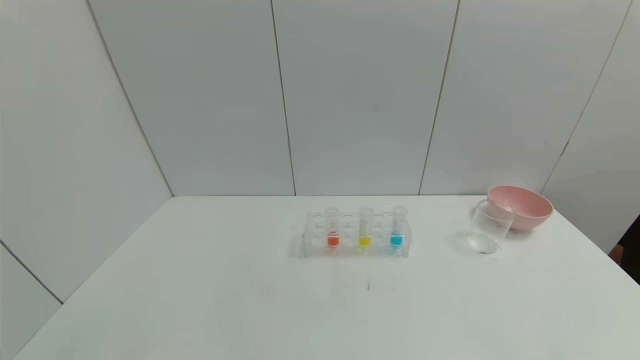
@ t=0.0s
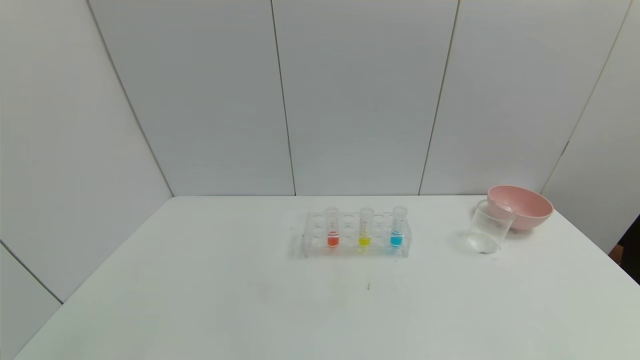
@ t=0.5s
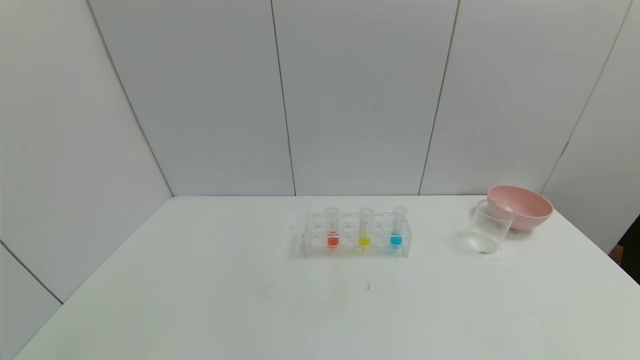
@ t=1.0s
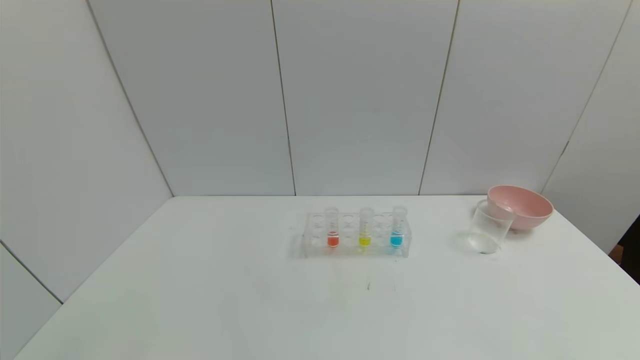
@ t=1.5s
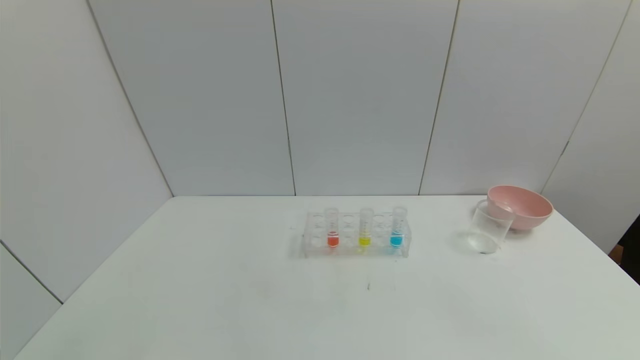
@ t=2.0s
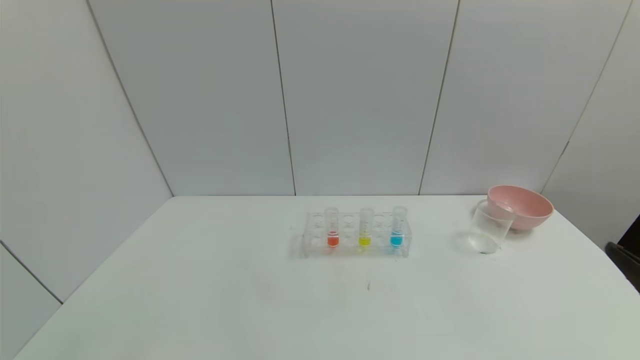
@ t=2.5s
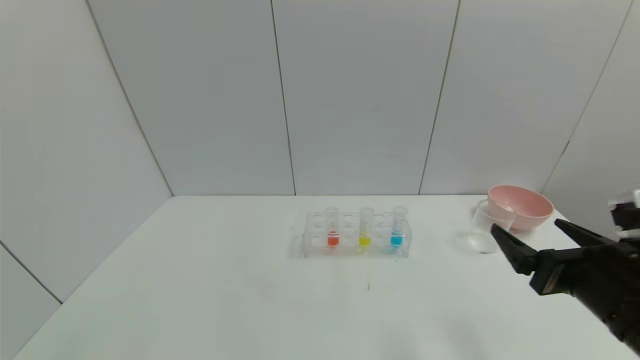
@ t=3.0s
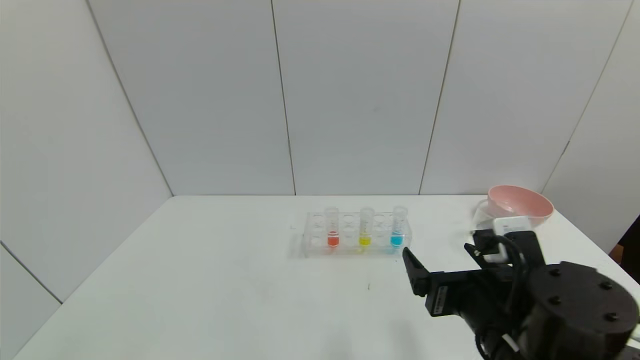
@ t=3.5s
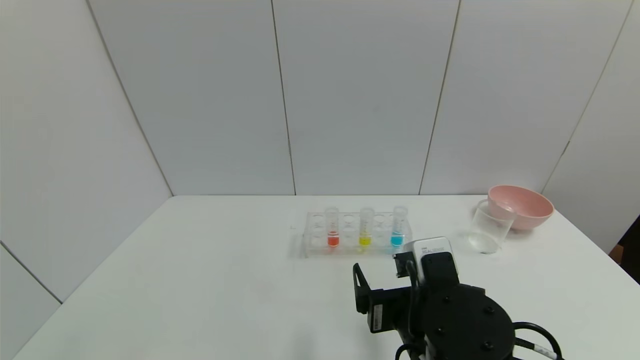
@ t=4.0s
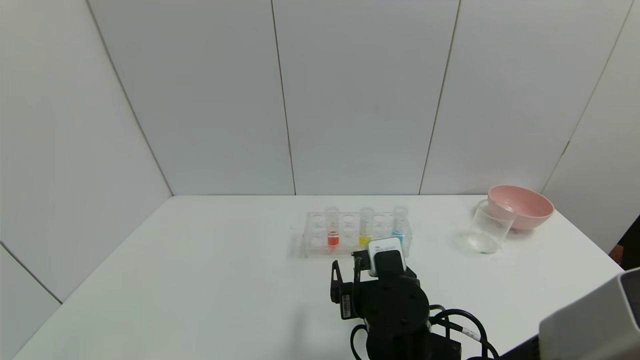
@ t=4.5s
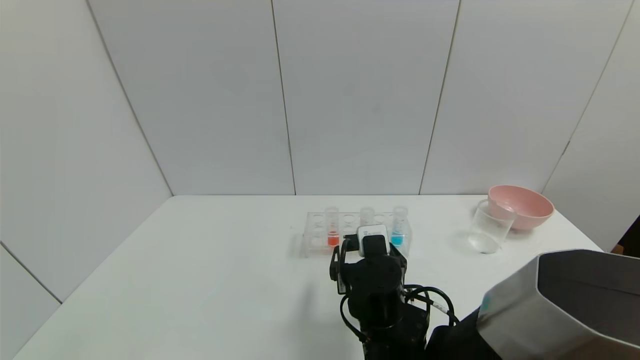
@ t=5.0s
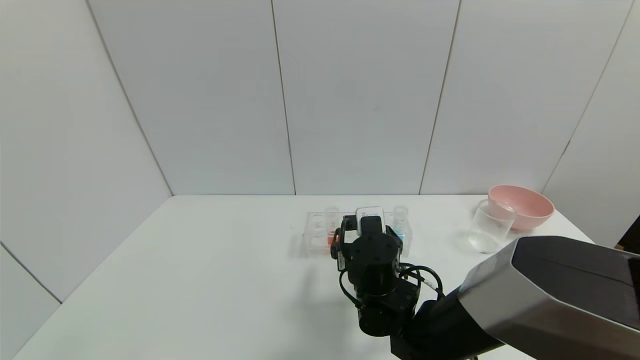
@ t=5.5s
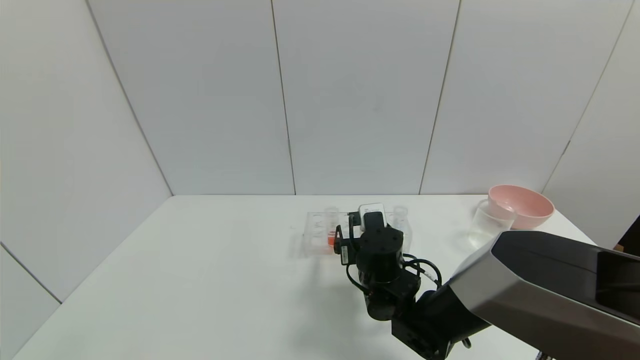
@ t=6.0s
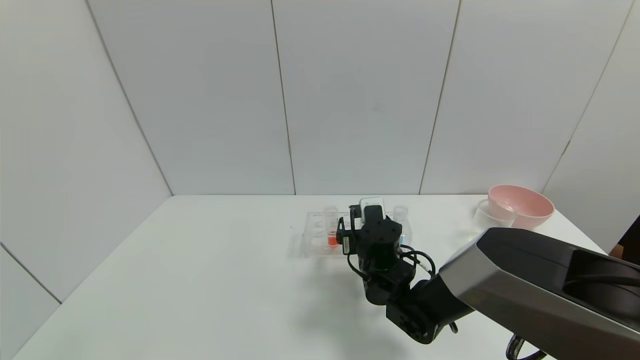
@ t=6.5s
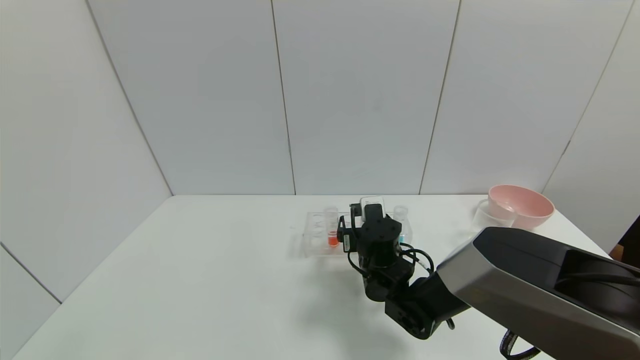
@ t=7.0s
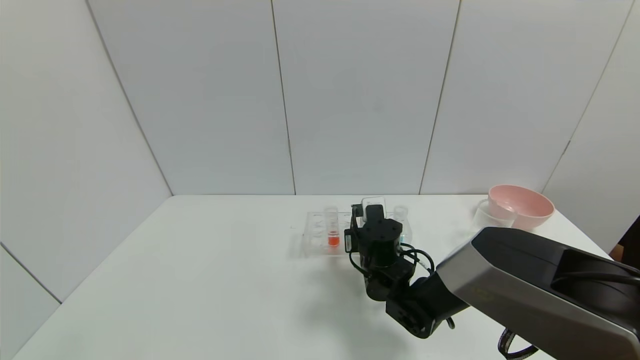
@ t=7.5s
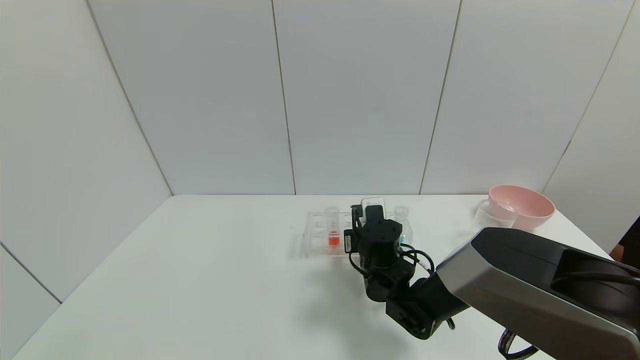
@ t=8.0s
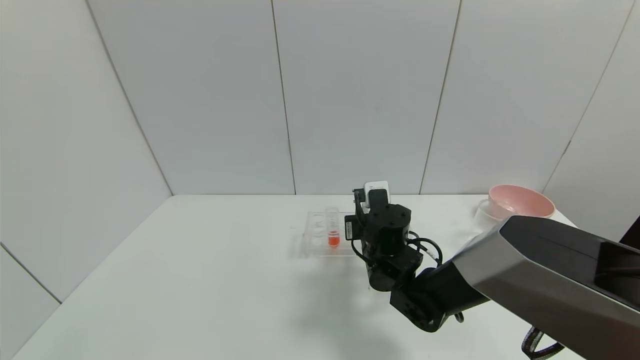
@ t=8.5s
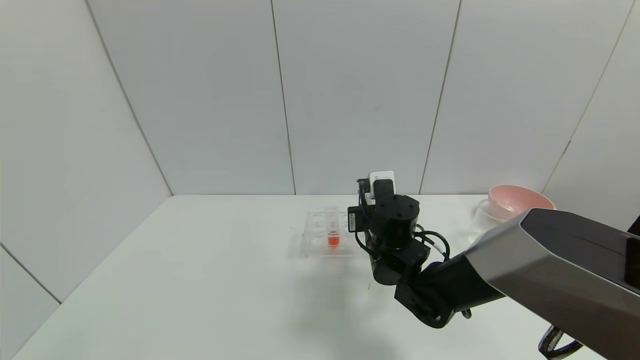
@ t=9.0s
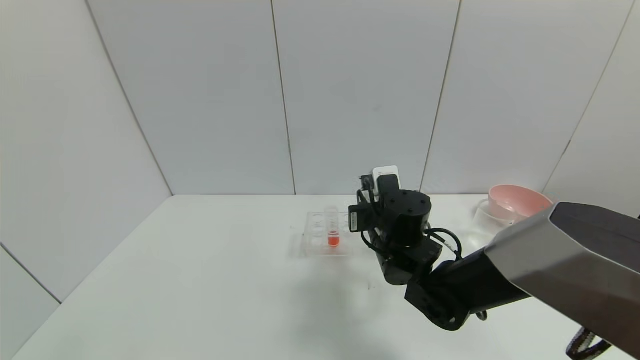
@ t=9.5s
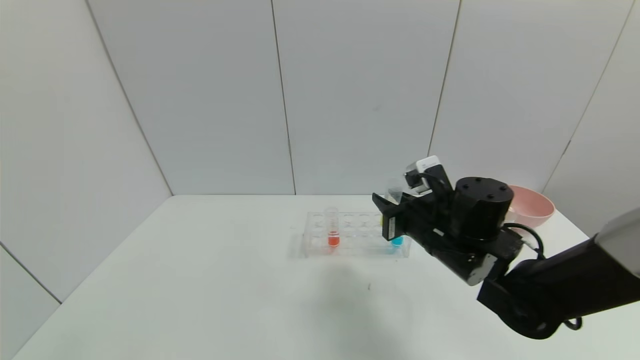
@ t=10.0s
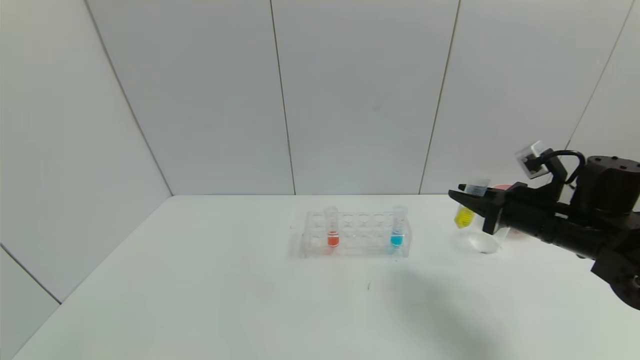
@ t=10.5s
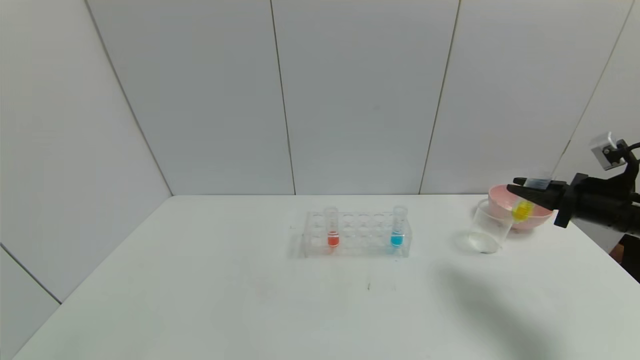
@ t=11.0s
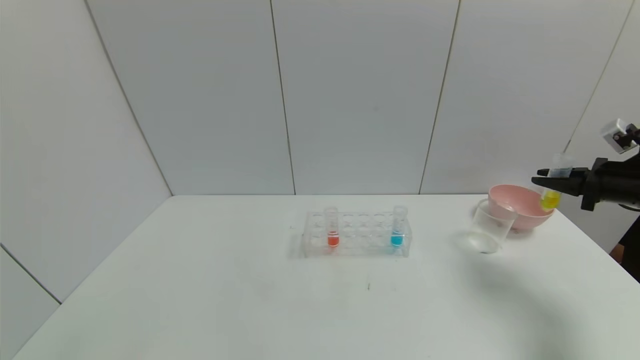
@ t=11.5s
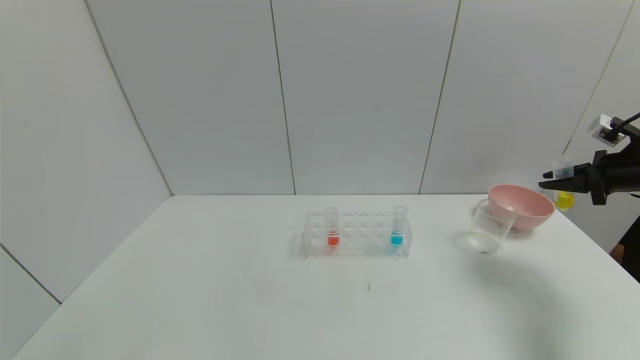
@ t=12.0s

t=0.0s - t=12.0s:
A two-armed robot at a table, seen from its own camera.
Task of the whole recording: pick up the test tube with yellow pigment and the test tube with blue pigment by grippers and pour them into the beaker.
Step, t=0.0s - t=10.0s: Pick up the test tube containing the yellow reagent with right gripper.
t=2.0s - t=4.0s: The right gripper goes some 30 cm to the left and forward.
t=4.0s - t=6.0s: The right gripper heads forward, covering some 15 cm.
t=6.0s - t=8.0s: The right gripper closes its fingers.
t=8.0s - t=10.0s: The right gripper goes roughly 15 cm upward and to the right.
t=10.0s - t=12.0s: The right gripper heads to the right, covering approximately 35 cm.

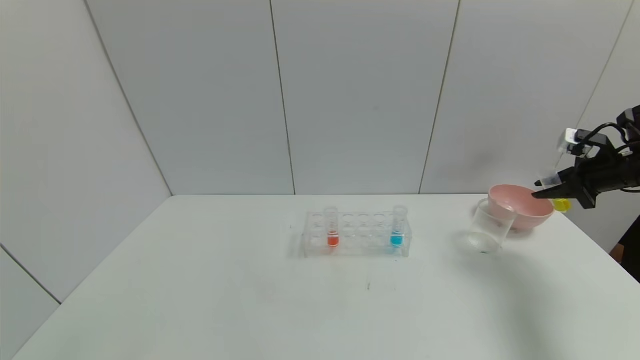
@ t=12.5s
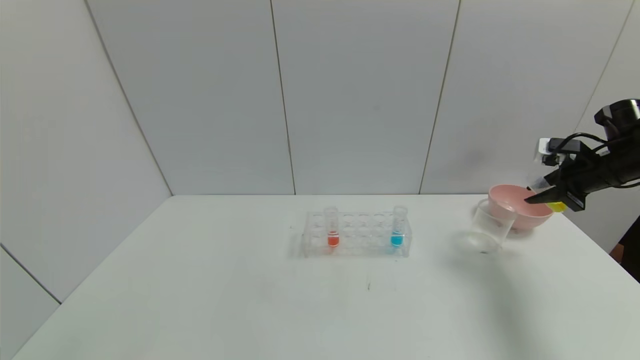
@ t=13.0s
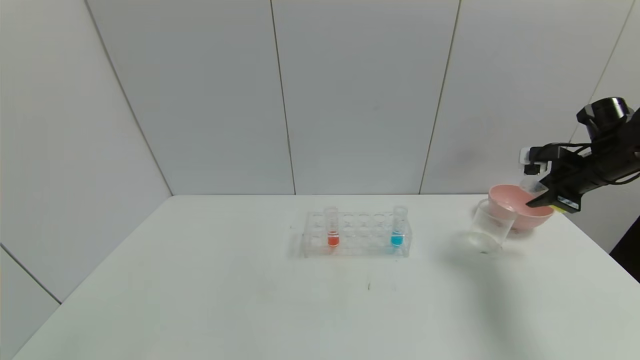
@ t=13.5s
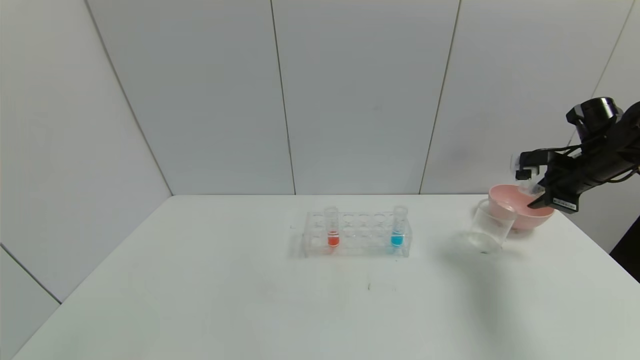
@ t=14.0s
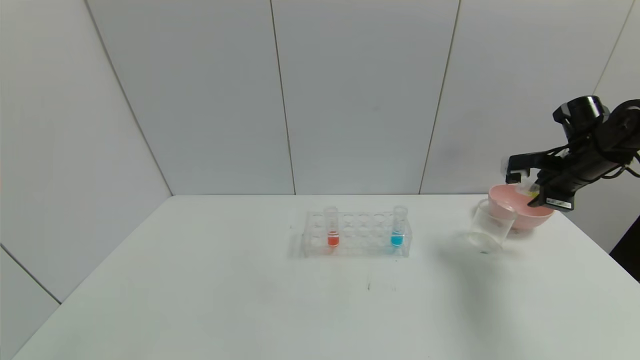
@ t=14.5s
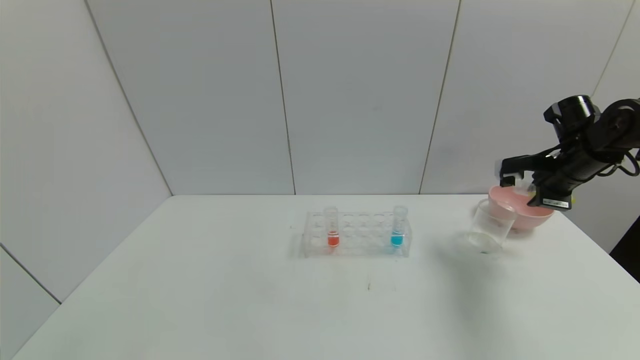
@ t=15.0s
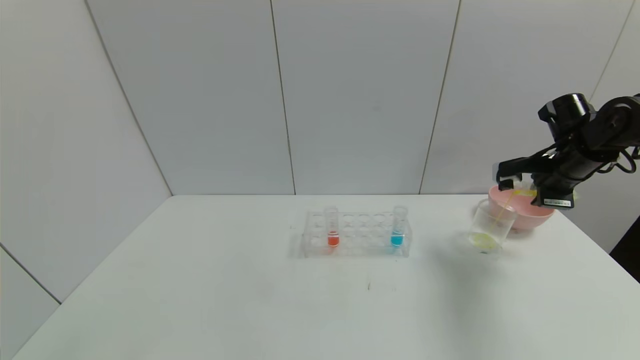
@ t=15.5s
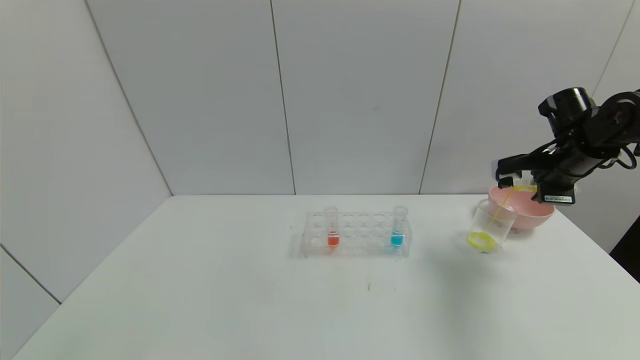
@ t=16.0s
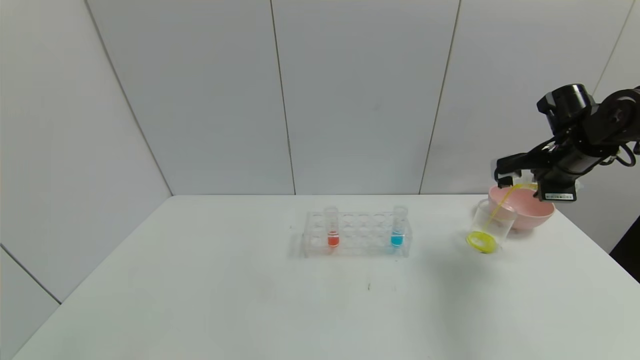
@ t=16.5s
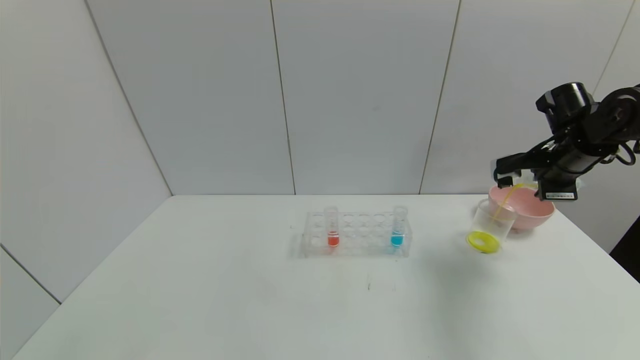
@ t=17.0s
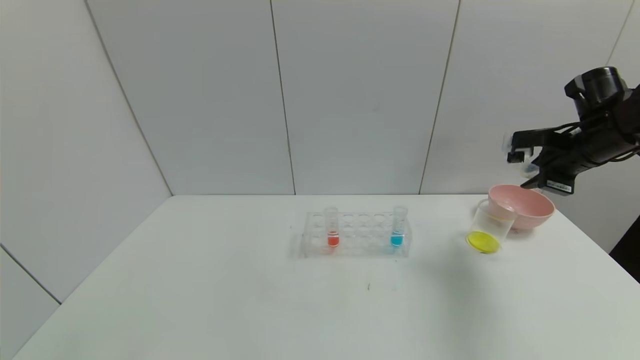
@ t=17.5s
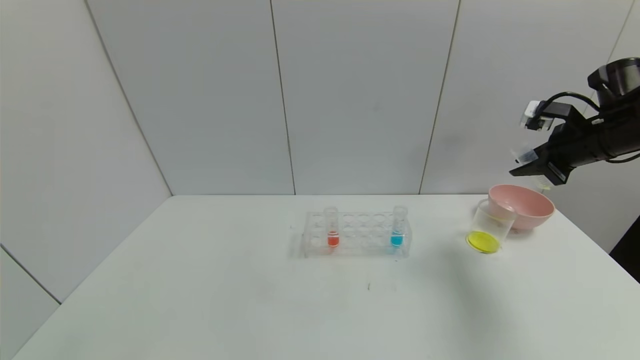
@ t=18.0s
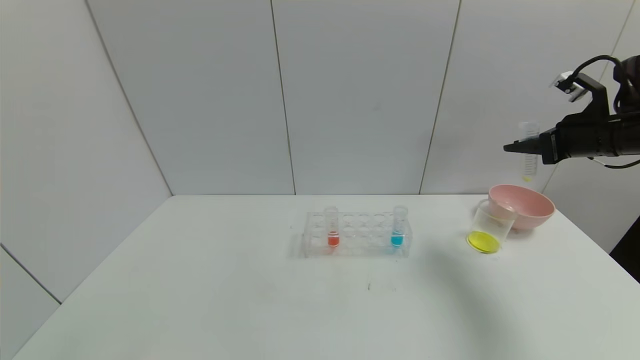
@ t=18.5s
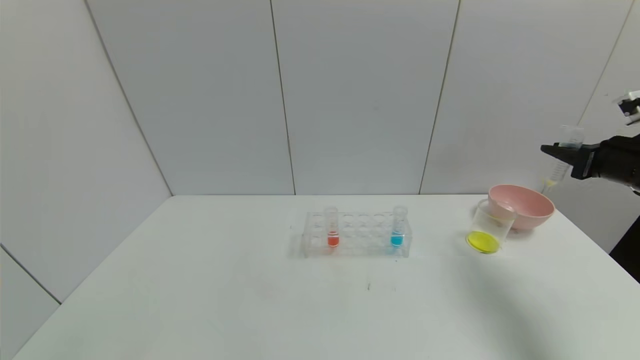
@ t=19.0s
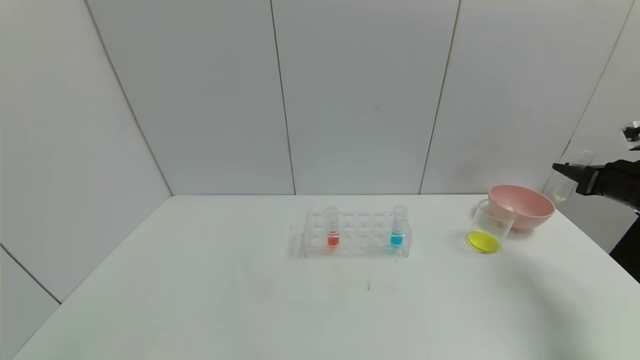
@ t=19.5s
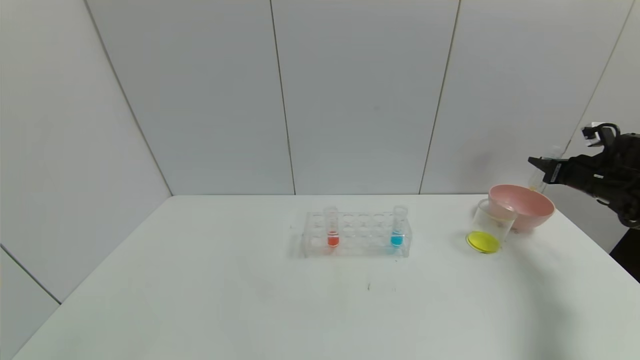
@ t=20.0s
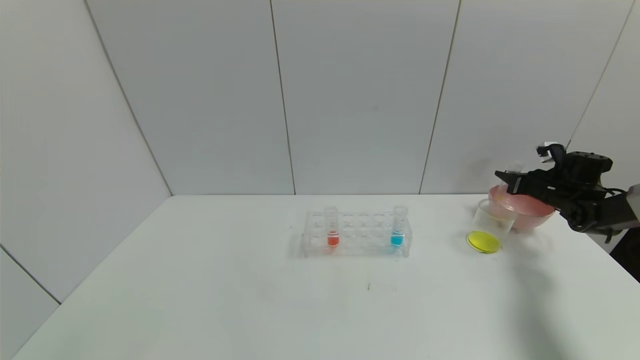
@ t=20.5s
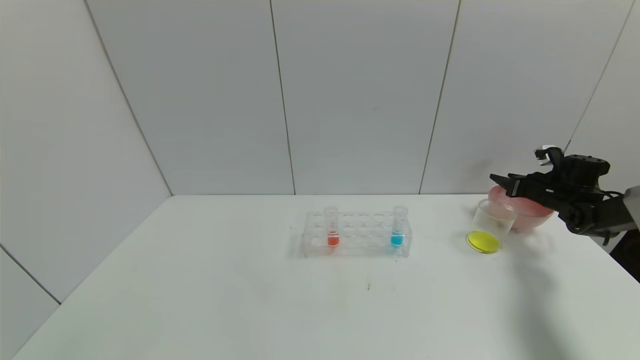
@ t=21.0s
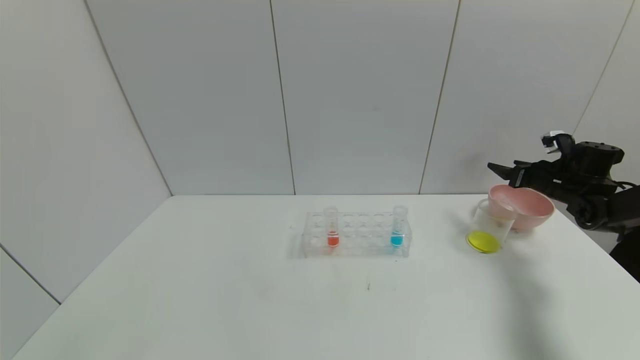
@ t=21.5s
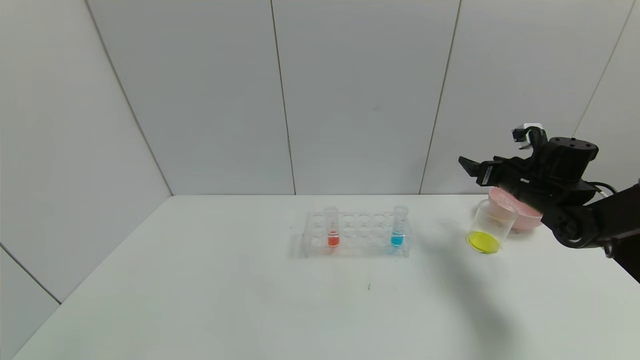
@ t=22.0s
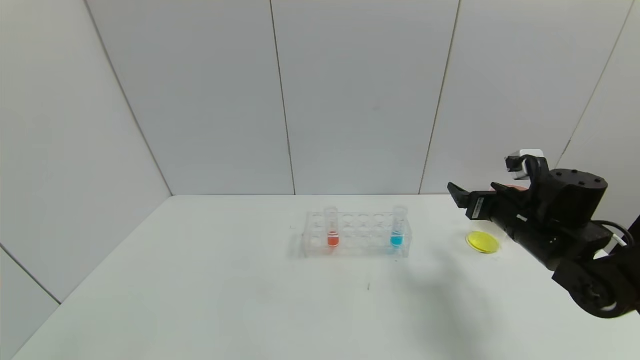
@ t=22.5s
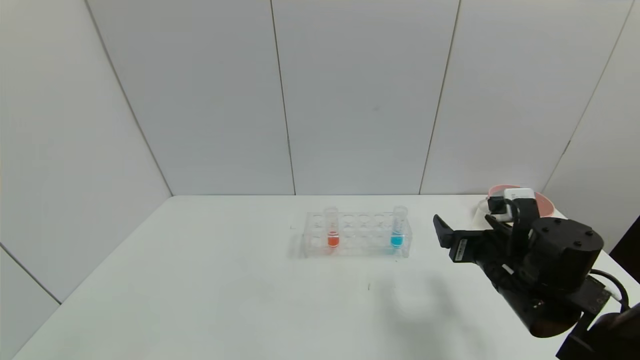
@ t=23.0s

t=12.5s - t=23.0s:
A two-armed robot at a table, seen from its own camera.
Task of the whole recording: pick up the test tube with yellow pigment and the test tube with blue pigment by grippers and pour them into the beaker.
Step, t=12.5s - t=18.5s: Pour the yellow reagent into the graduated cylinder with right gripper.
Step, t=19.0s - t=21.5s: Place the test tube into the bowl with right gripper.
t=12.5s - t=14.5s: The right gripper moves to the left, about 5 cm.
t=14.5s - t=16.5s: The grippers stay close to where they were, moving slightly.
t=16.5s - t=19.0s: The right gripper goes roughly 10 cm to the right and backward.
t=19.0s - t=21.0s: The right gripper travels forward and downward by about 20 cm, and opens up.
t=21.0s - t=23.0s: The right gripper travels to the left and backward by some 35 cm, and opens up.
